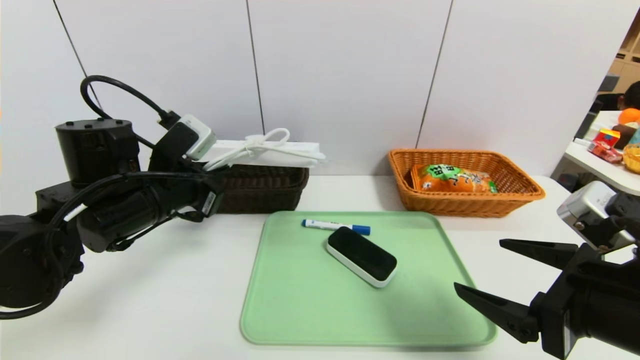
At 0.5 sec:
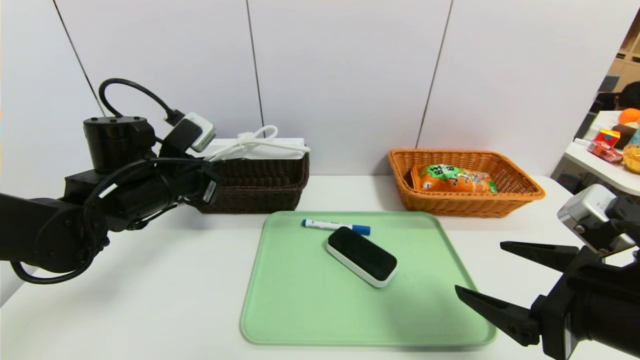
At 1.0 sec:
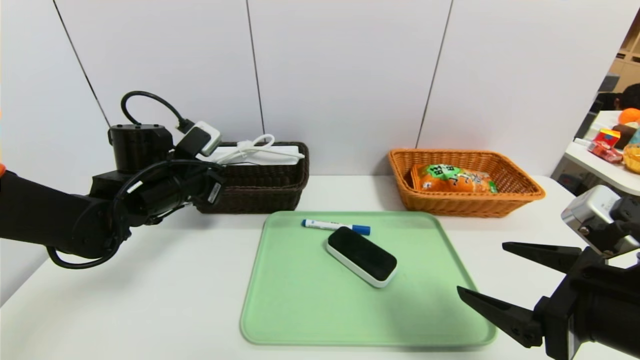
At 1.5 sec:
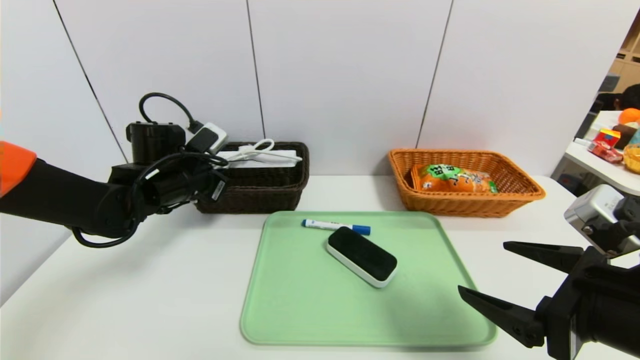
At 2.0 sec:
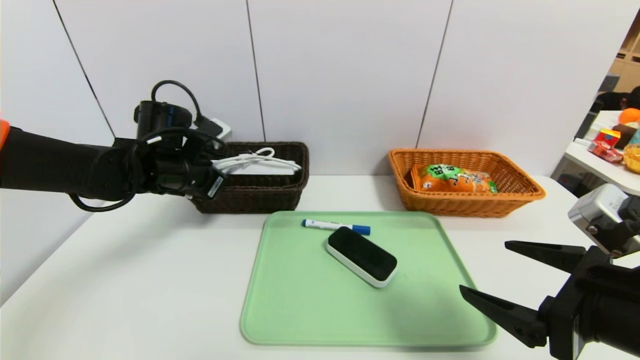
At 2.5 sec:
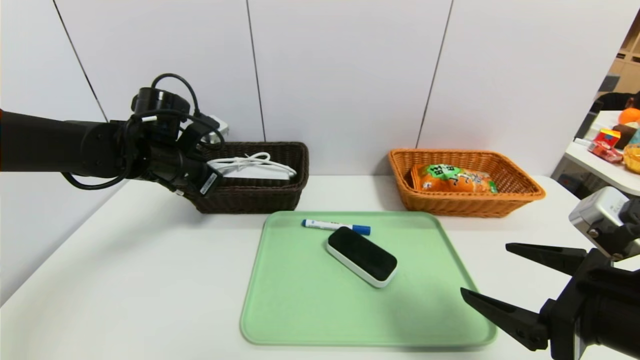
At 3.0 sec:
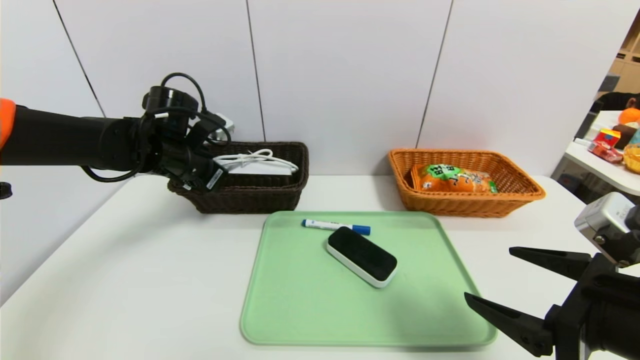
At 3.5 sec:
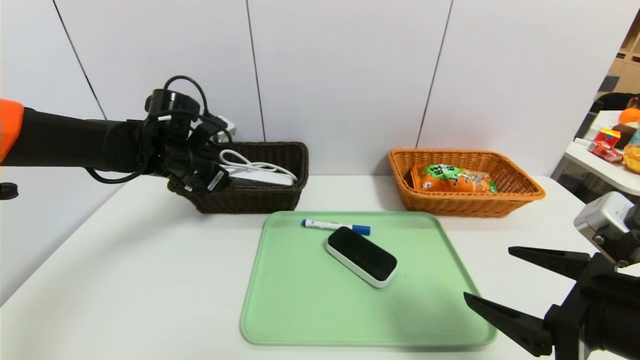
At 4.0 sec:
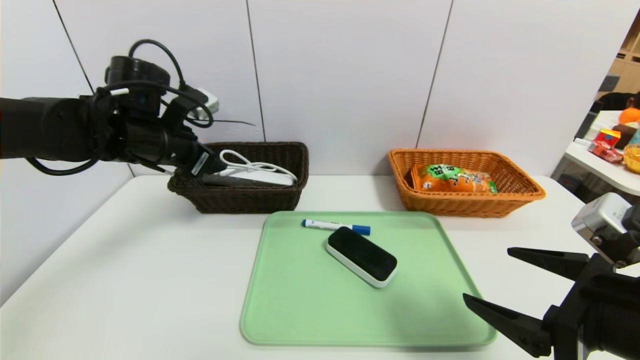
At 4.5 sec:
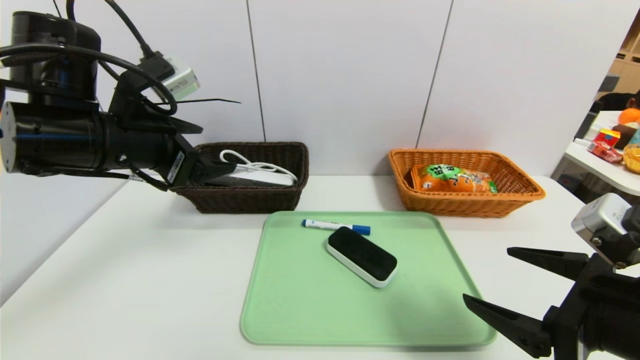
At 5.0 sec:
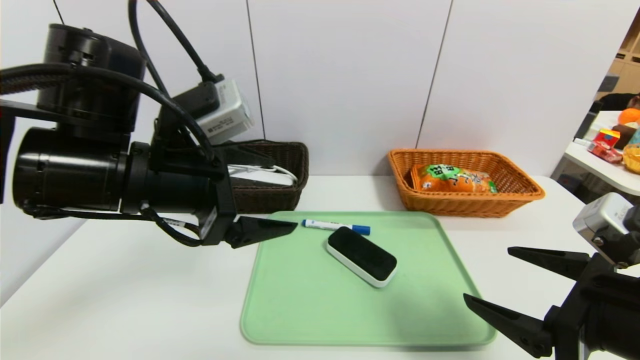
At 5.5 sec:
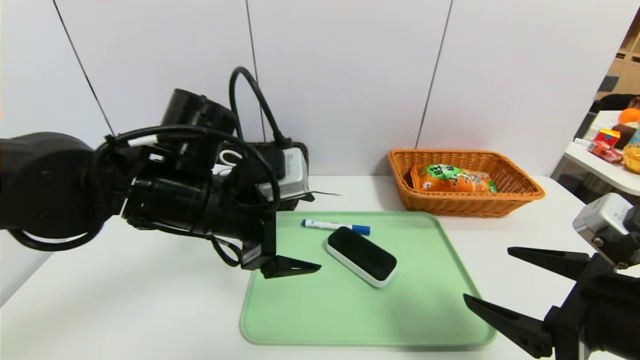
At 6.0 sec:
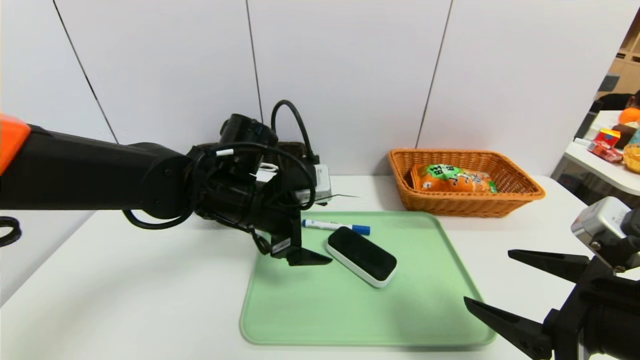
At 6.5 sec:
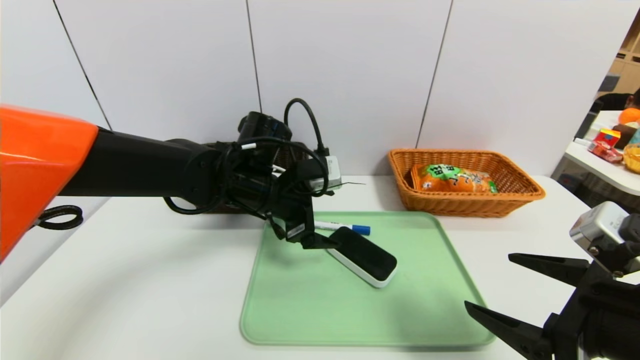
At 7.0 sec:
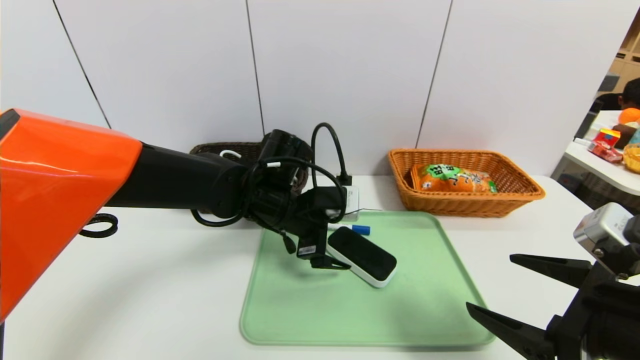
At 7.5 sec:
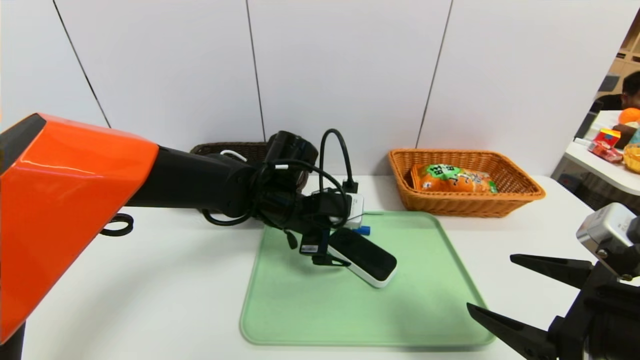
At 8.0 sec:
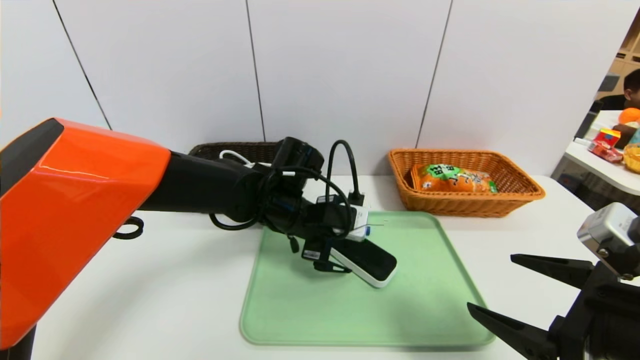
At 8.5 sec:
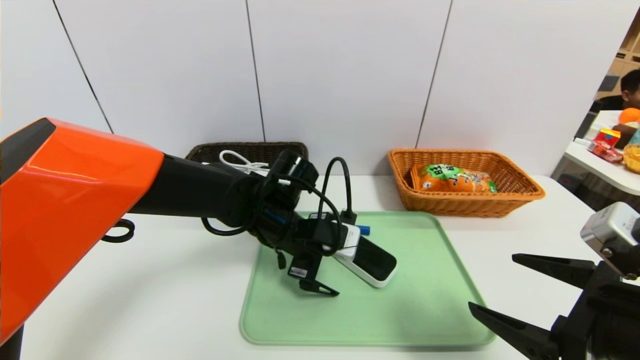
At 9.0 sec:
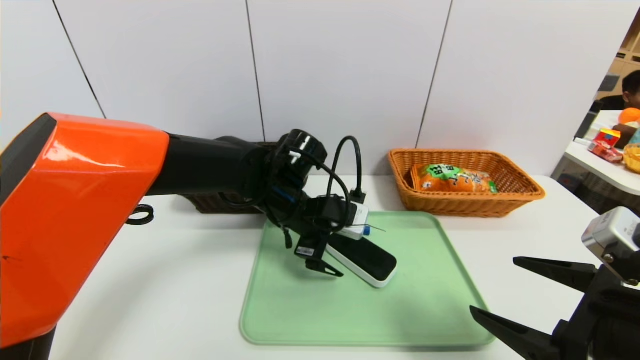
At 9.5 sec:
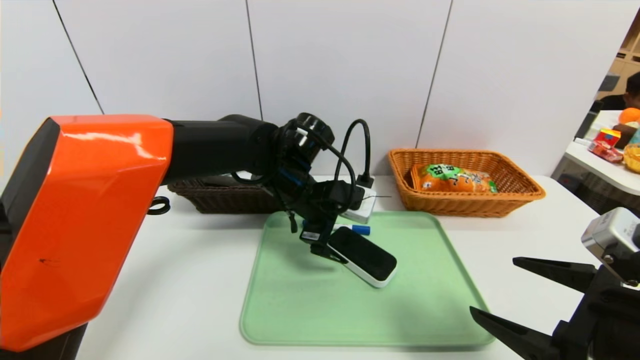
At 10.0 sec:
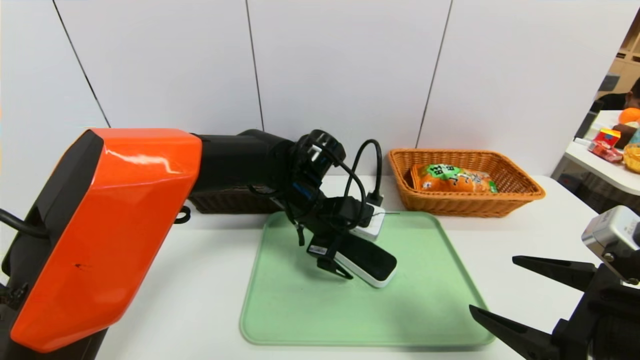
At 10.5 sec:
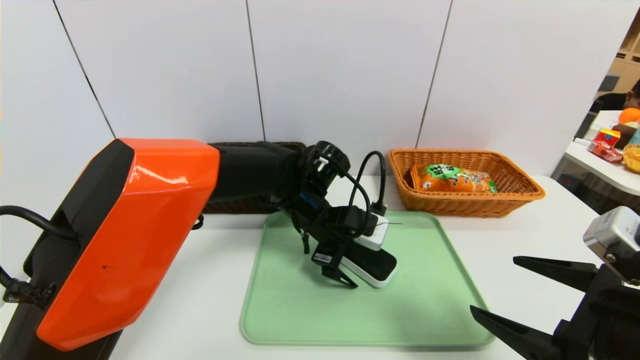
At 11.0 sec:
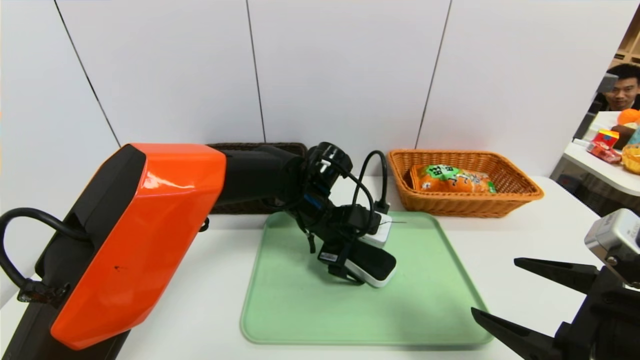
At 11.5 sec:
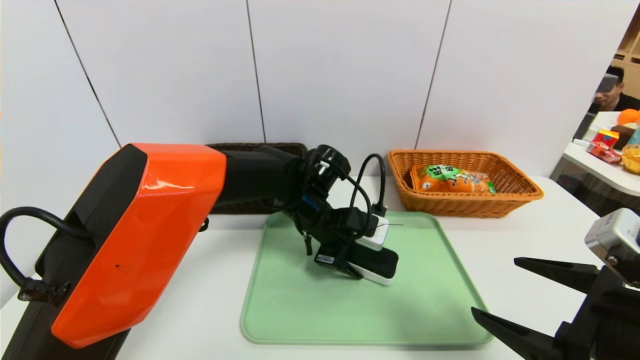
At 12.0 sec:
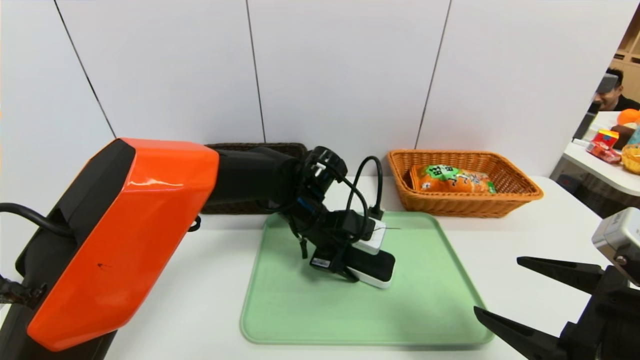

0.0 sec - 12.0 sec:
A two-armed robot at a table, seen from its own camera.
Task of the whole recording: place the food in the right basket with the right gripper, and place the non food items in the left basket with the left gripper.
Step, 0.0 sec - 4.5 sec: Grasp the power strip and put it in the left basket.
0.0 sec - 2.0 sec: The left gripper travels forward by approximately 10 cm.
2.0 sec - 4.0 sec: The left gripper heads upward, covering about 5 cm, and opens.
4.0 sec - 6.0 sec: The left gripper goes approximately 15 cm to the right and downward.
6.0 sec - 8.0 sec: The left gripper shifts some 5 cm to the right.
8.0 sec - 10.0 sec: The grippers stay close to where they were, moving slightly.
10.0 sec - 12.0 sec: The left gripper closes.

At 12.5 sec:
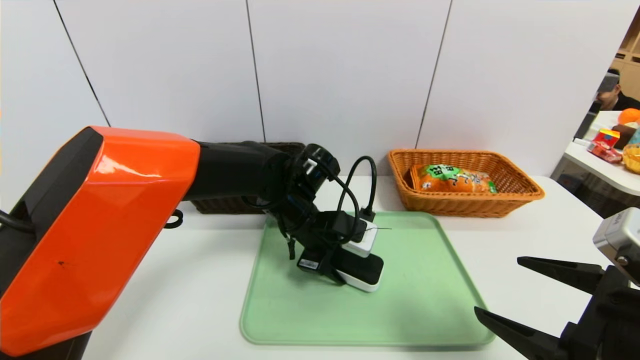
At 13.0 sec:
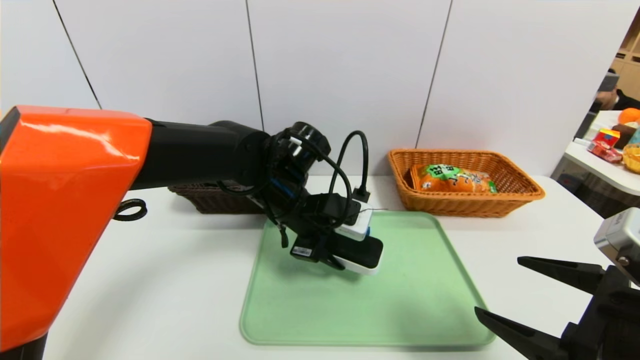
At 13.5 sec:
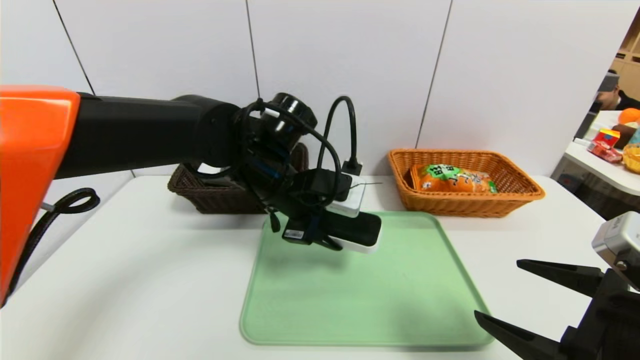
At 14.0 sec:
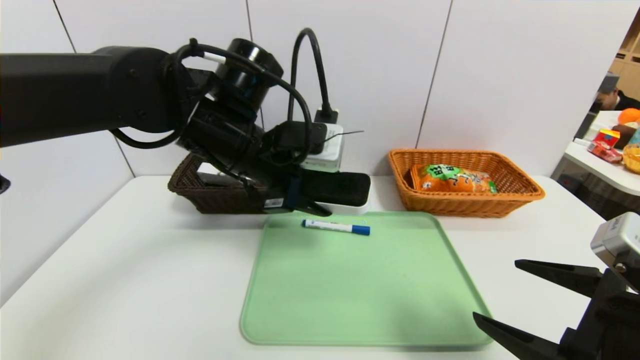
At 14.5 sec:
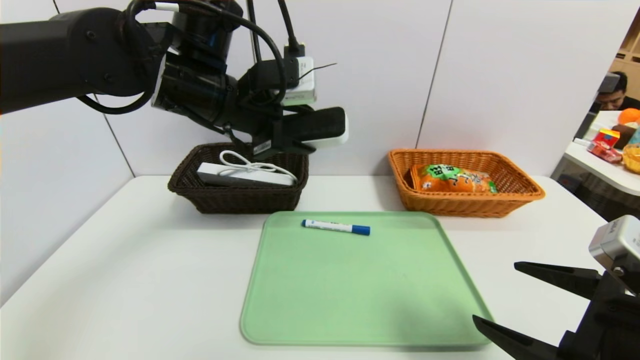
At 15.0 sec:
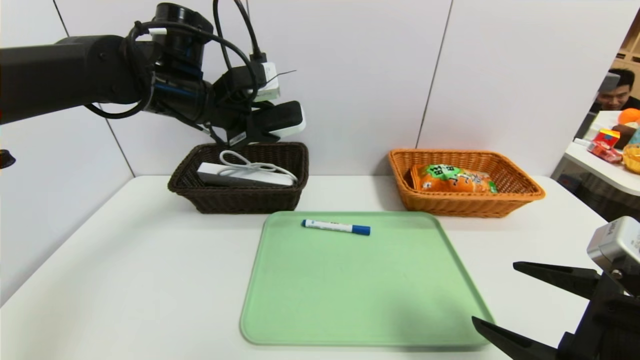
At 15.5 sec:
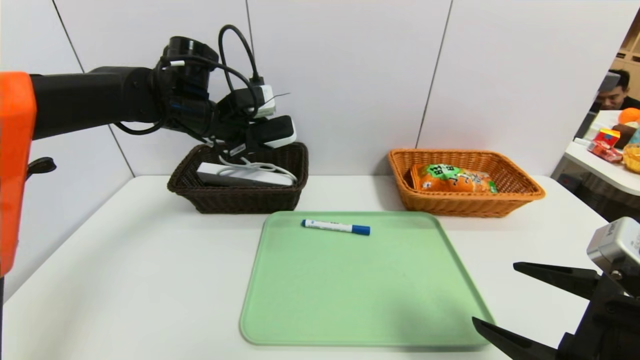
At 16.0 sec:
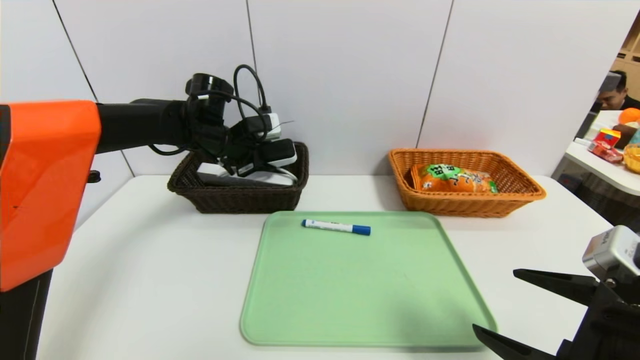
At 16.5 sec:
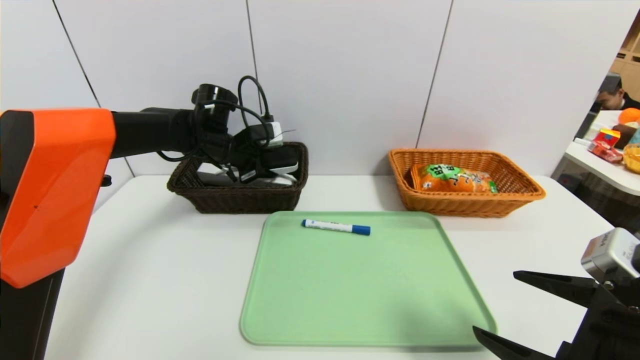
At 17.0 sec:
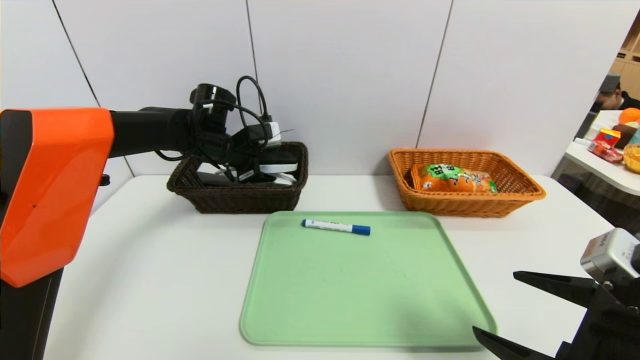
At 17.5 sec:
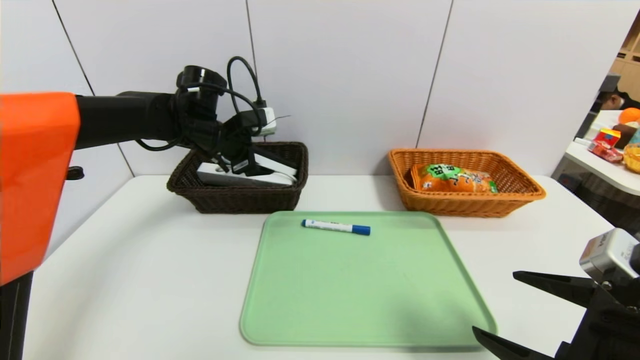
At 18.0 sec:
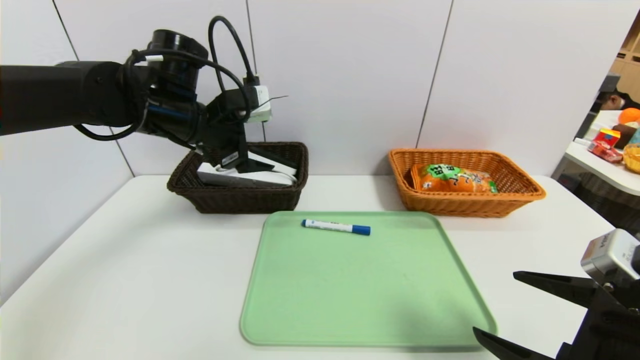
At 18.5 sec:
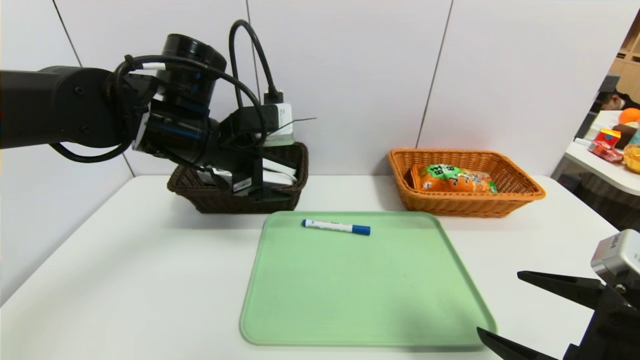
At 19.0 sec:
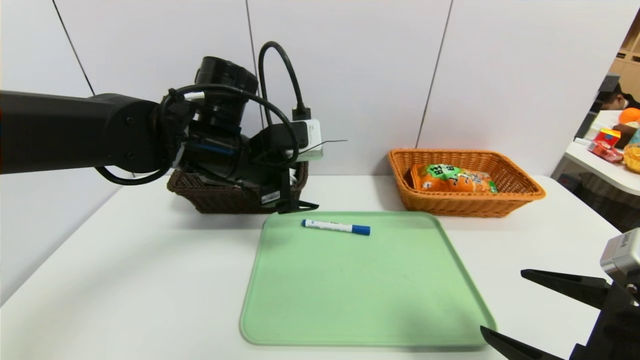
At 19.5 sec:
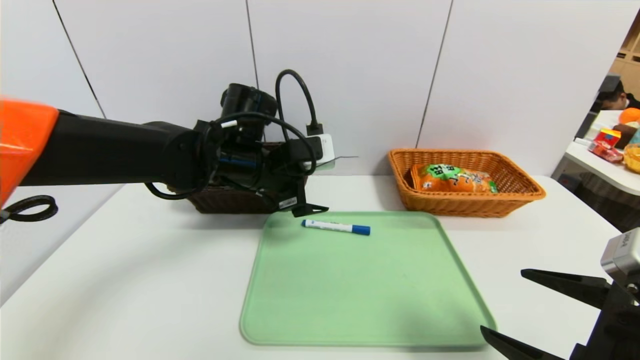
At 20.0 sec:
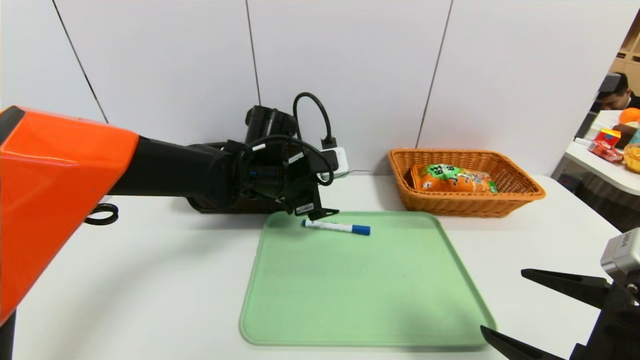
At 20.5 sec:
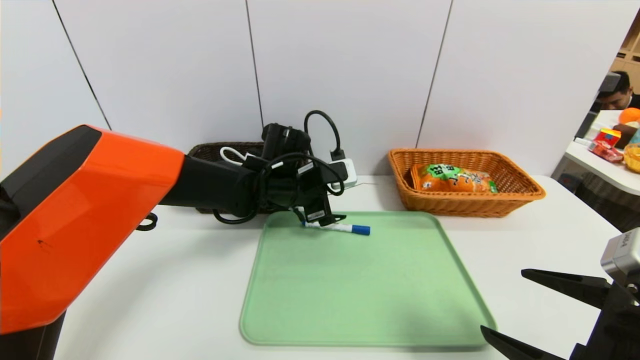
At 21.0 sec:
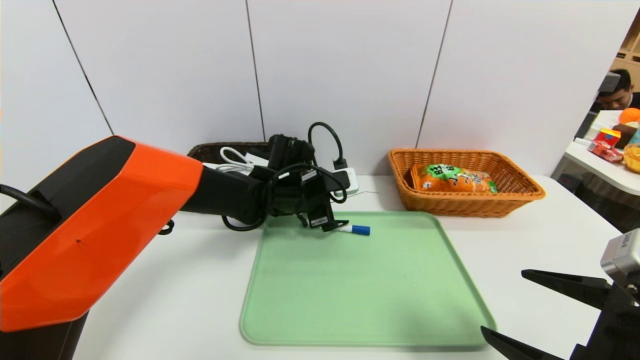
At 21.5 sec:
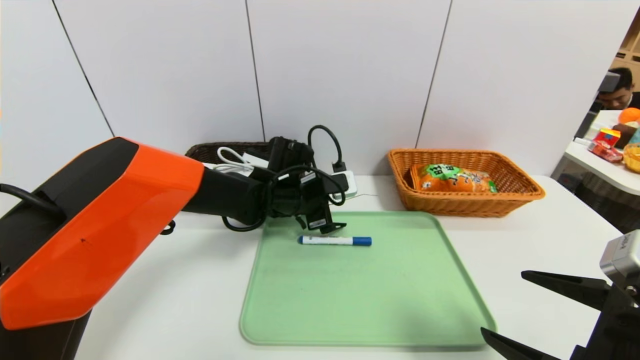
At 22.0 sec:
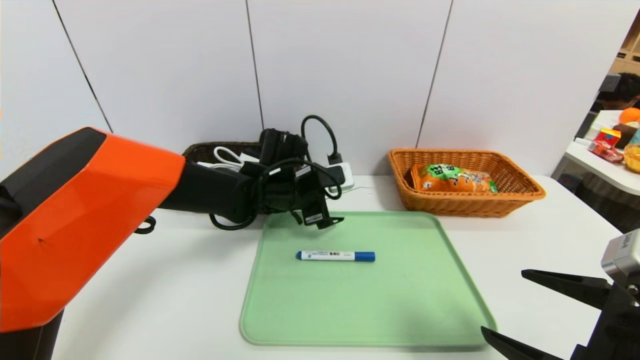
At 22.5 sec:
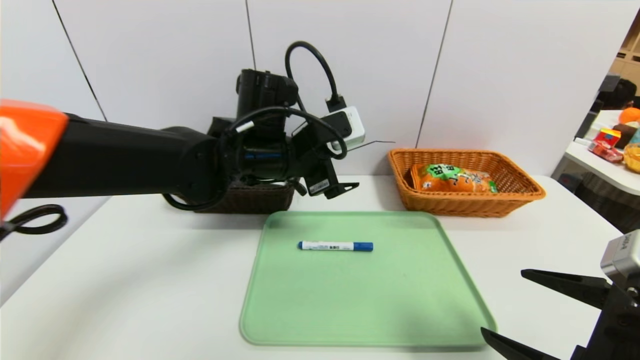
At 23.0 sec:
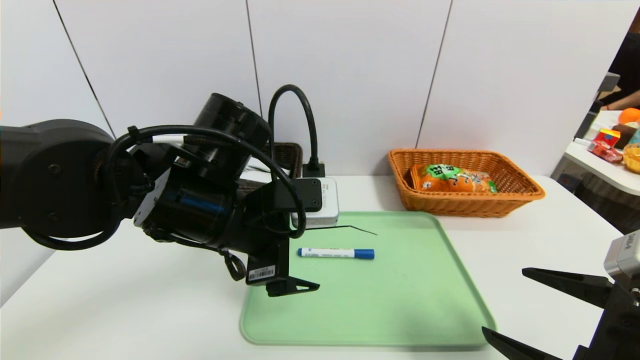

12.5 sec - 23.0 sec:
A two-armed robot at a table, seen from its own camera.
Task of the whole recording: place the food in the right basket with the right gripper, and place the non food items in the left basket with the left gripper.
Step, 12.5 sec - 18.0 sec: Grasp the white eraser and put it in the left basket.
12.5 sec - 14.5 sec: The left gripper moves upward and to the left, roughly 20 cm.
14.5 sec - 16.5 sec: The left gripper heads forward, downward and to the left, covering roughly 20 cm.
16.5 sec - 19.0 sec: The left gripper shifts approximately 15 cm backward and to the right, and opens up.
19.0 sec - 21.0 sec: The left gripper heads downward, forward and to the right, covering approximately 15 cm.
21.0 sec - 23.0 sec: The left gripper goes approximately 20 cm backward and upward.
